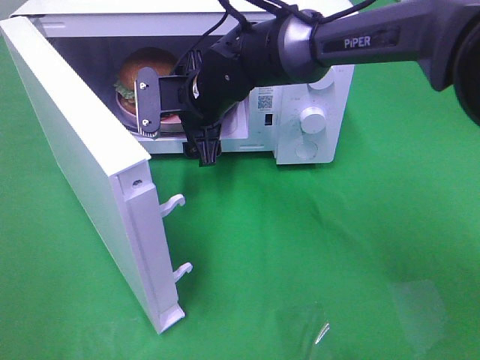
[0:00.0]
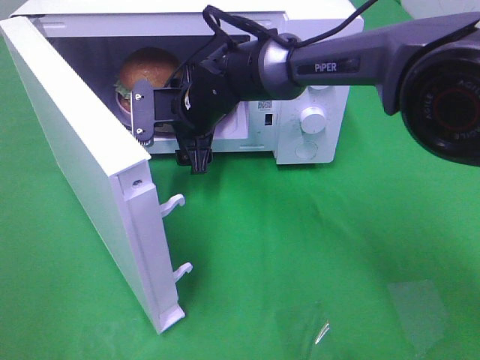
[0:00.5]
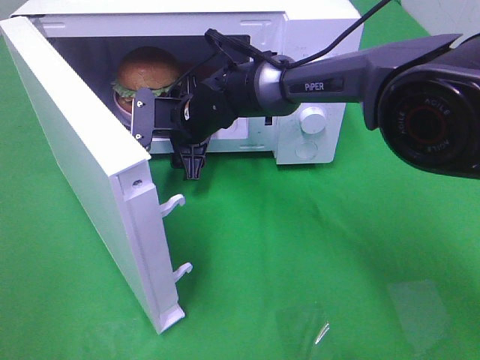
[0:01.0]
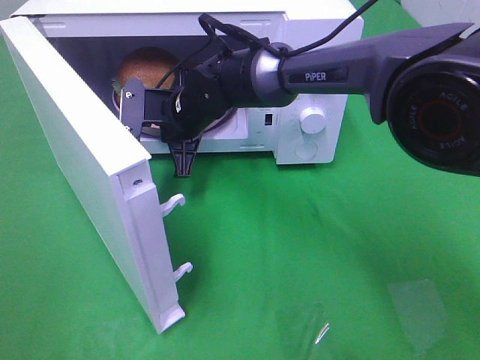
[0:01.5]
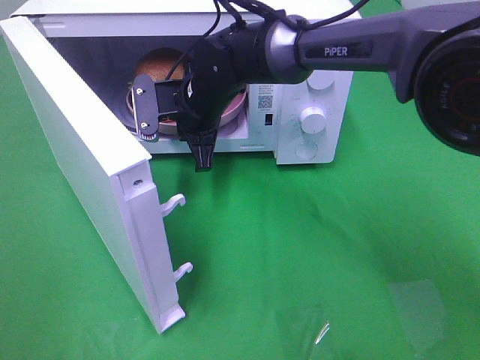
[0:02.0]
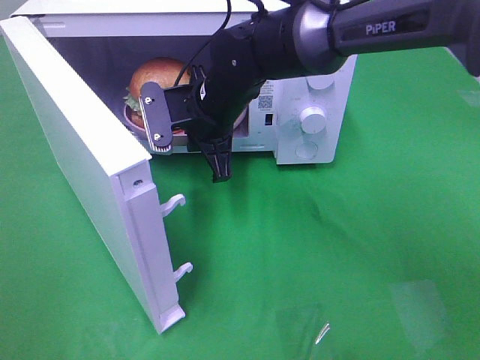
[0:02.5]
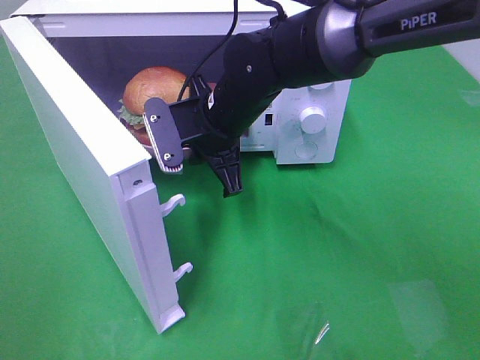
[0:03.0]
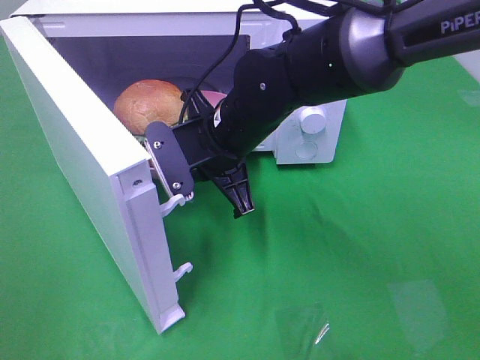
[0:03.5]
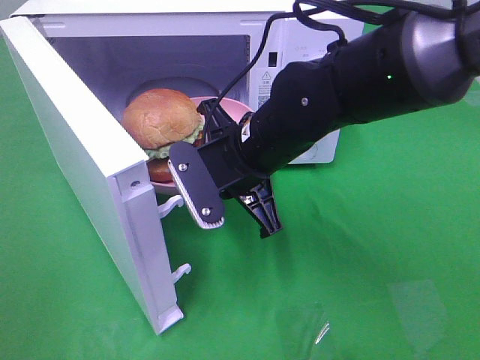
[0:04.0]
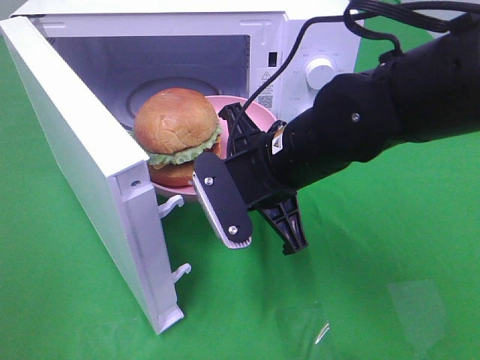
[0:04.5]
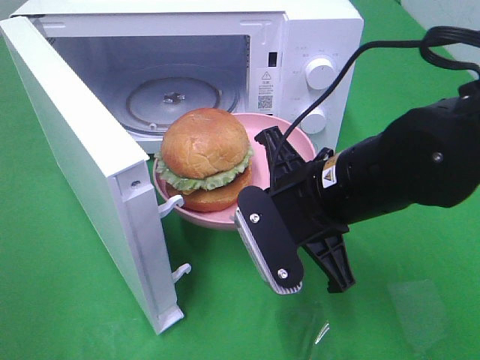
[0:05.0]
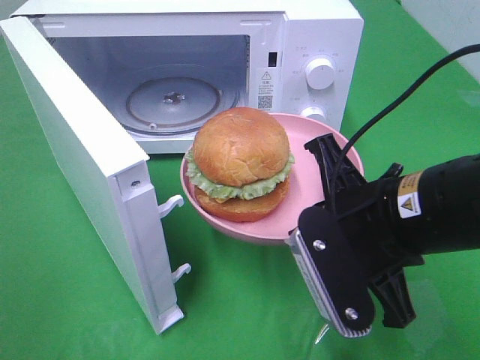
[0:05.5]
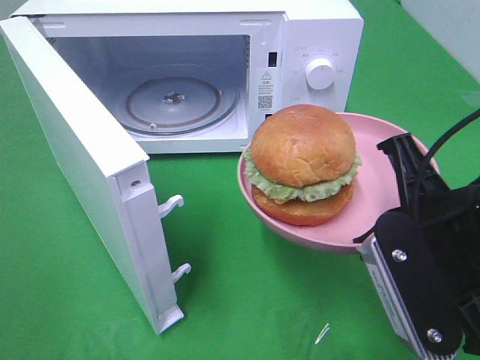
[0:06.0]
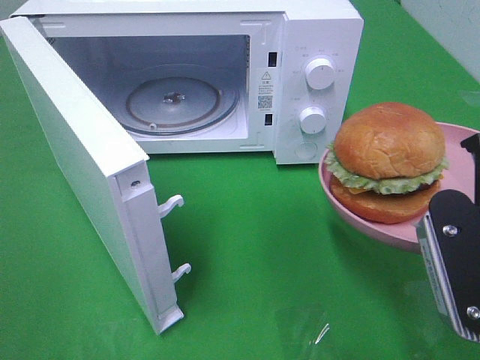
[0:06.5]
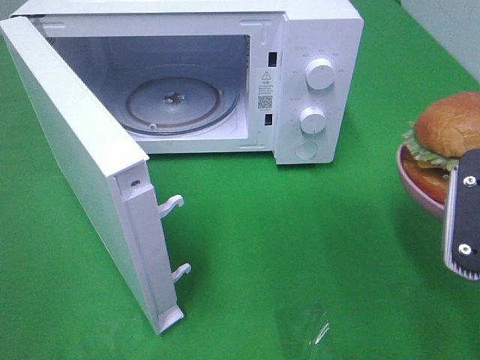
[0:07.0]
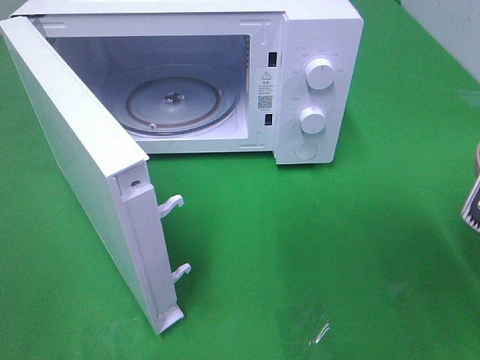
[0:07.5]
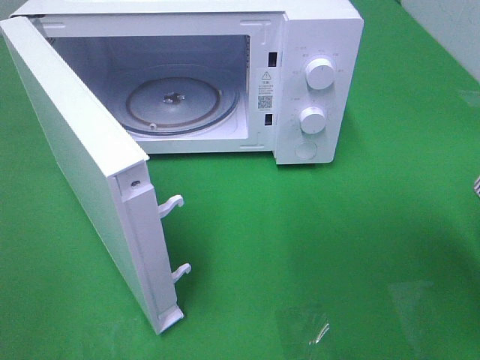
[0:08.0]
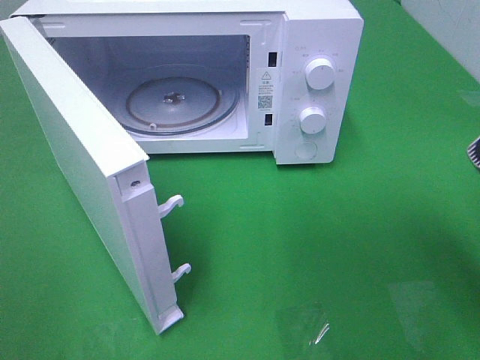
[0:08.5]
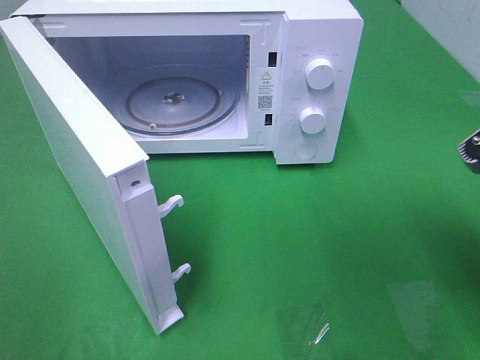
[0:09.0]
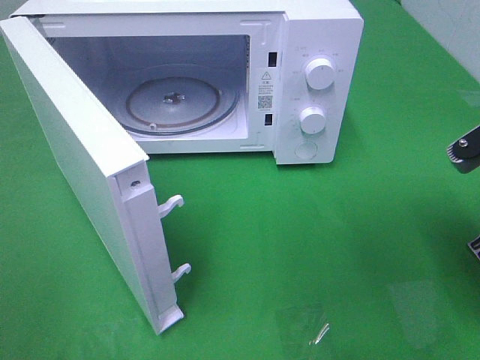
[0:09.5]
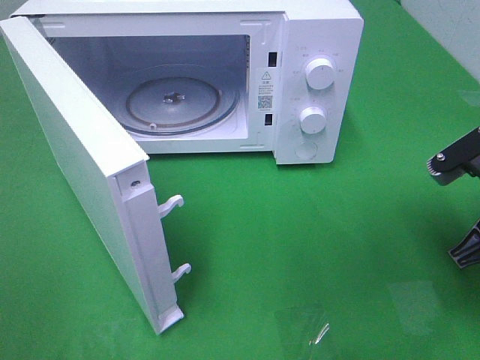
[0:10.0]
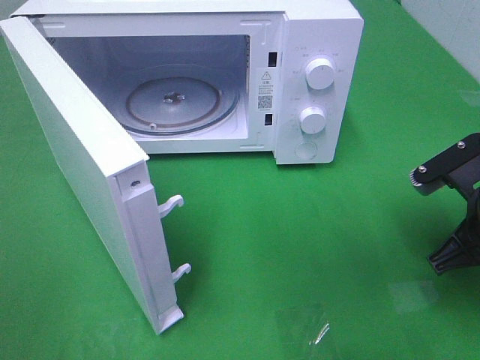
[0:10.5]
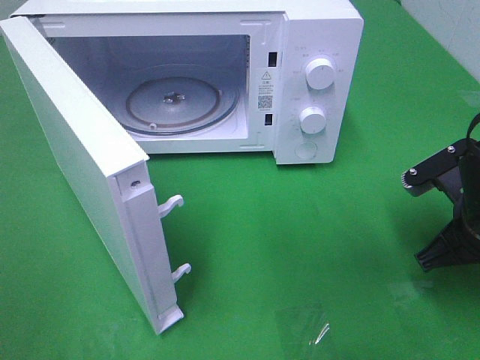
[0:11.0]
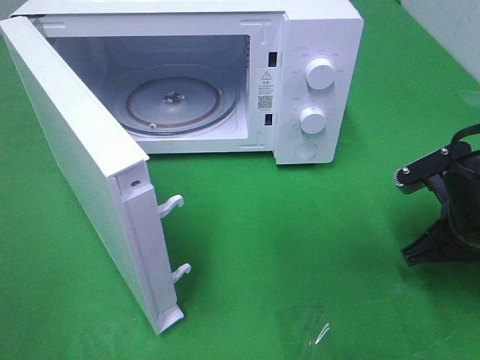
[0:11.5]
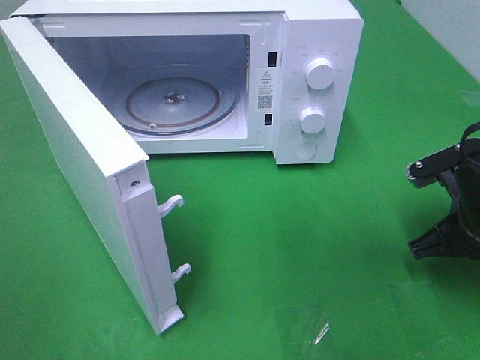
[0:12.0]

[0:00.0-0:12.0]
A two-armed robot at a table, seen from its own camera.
Task of the whole recording: Heat the burger.
0:00.0 to 0:02.0: The right gripper closes its fingers.
0:02.0 to 0:04.0: The right gripper goes some 15 cm backward and to the right.
0:04.0 to 0:06.0: The right gripper goes some 20 cm backward and to the right.
0:06.0 to 0:08.0: The right gripper travels to the right by some 10 cm.
0:08.0 to 0:10.0: The right gripper is displaced forward and downward by approximately 10 cm.
0:10.0 to 0:12.0: The right gripper goes about 5 cm downward.

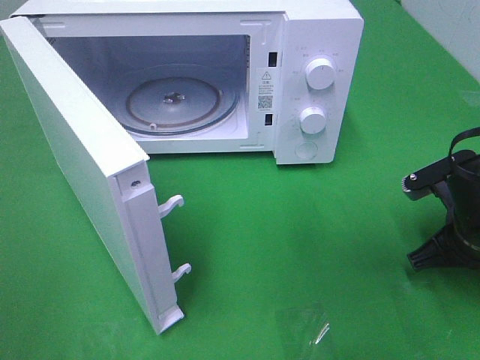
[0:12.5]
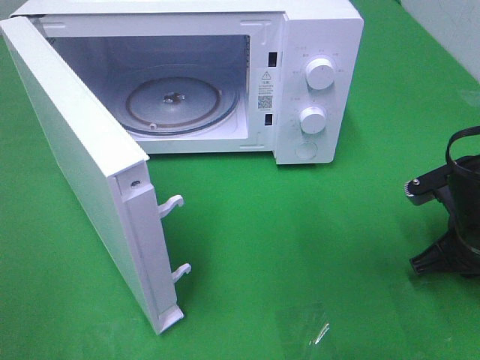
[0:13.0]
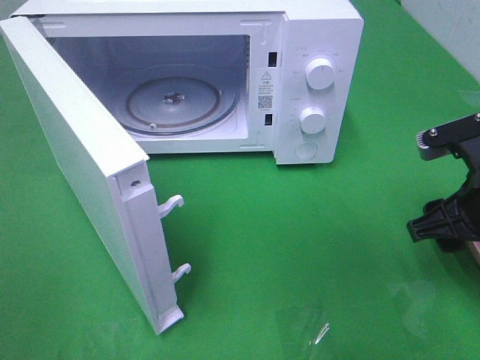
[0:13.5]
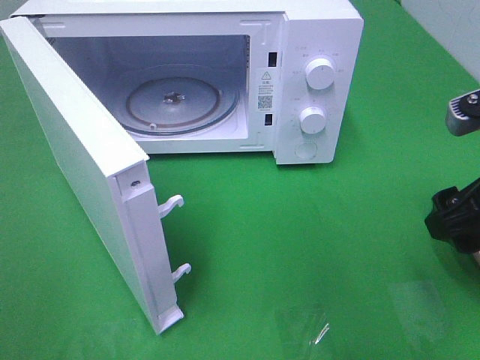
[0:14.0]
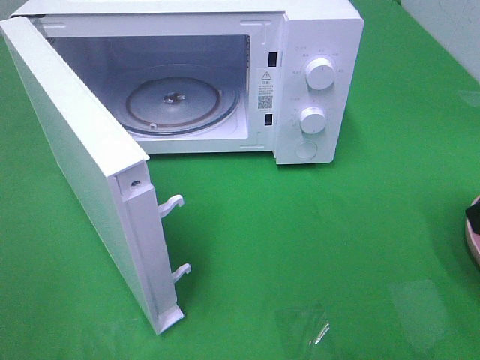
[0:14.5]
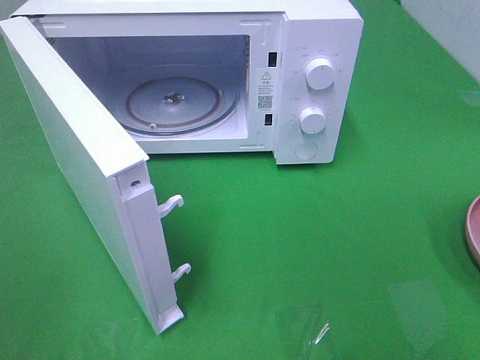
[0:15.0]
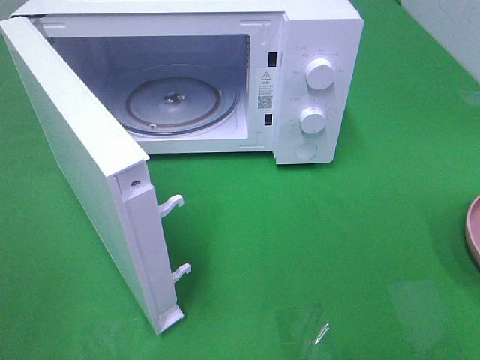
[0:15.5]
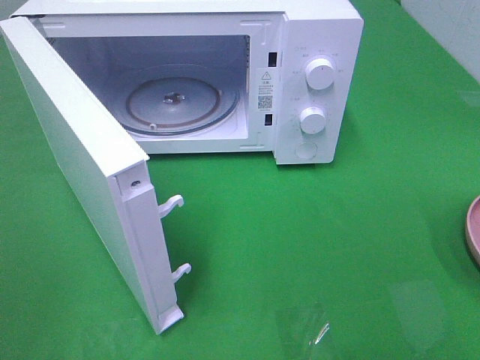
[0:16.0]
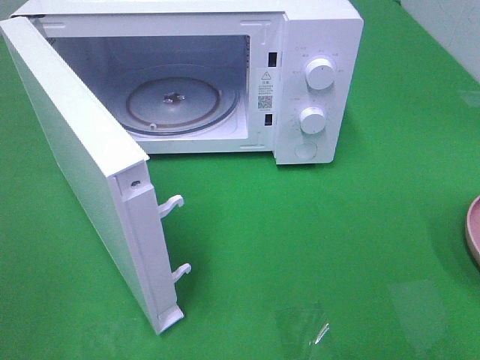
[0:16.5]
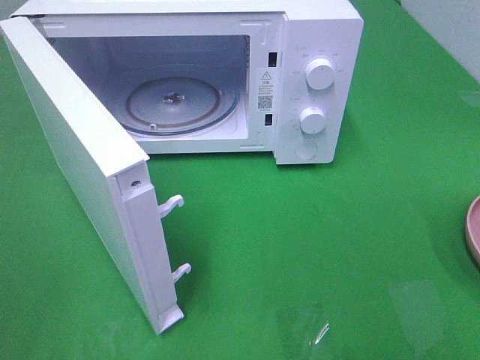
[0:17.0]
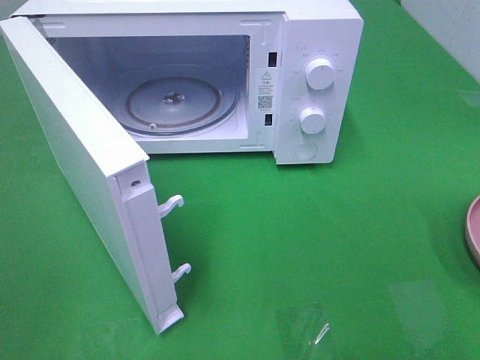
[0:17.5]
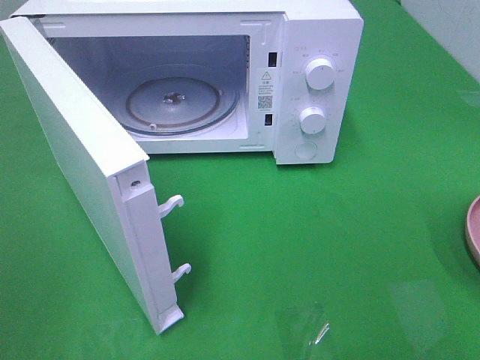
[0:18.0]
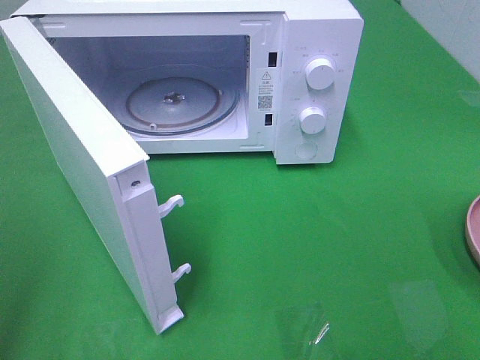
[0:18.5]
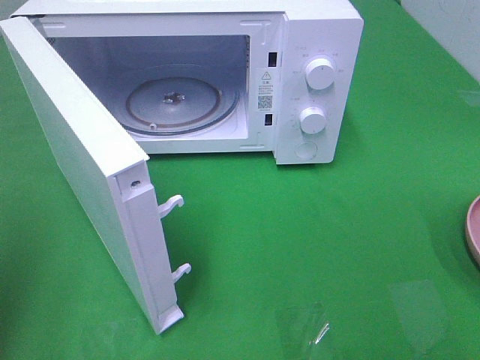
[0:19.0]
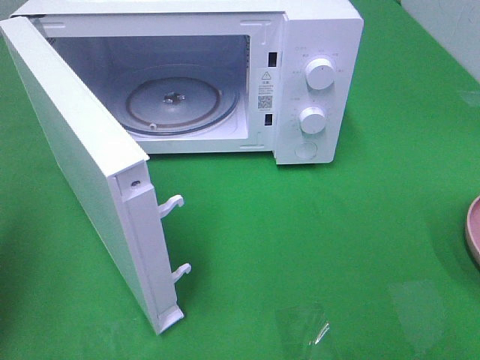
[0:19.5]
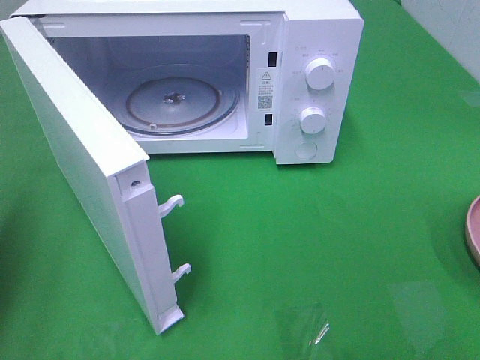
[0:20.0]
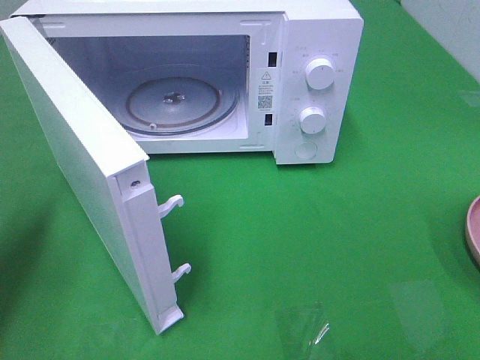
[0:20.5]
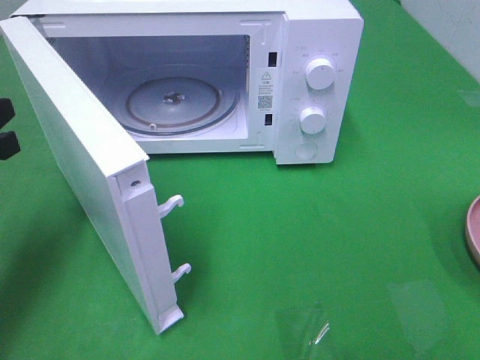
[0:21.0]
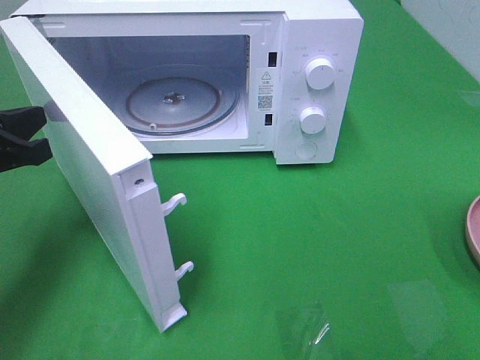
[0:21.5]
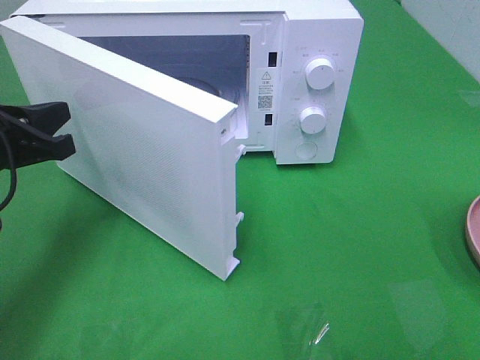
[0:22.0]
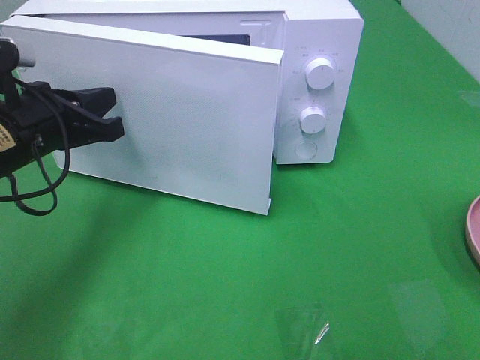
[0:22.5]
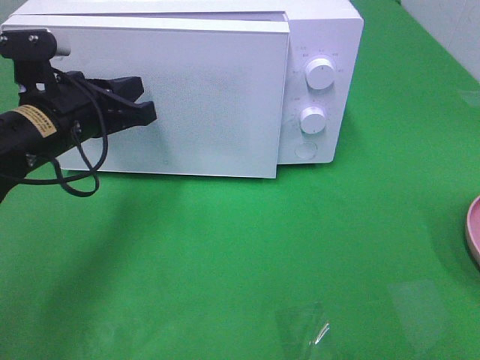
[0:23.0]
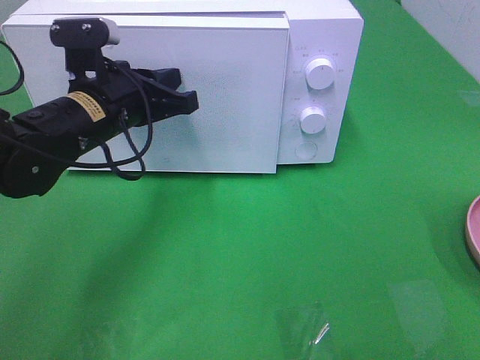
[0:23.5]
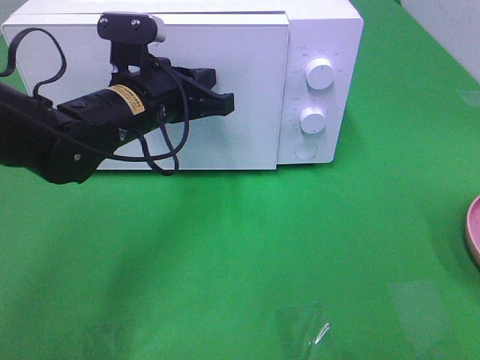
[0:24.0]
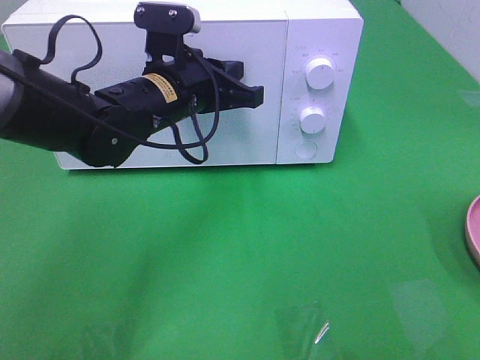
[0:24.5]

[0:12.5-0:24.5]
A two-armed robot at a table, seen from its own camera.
Task of the whole recording: Heat the burger.
0:12.5 to 0:14.5: The right gripper heads upward and backward, covering roughly 20 cm, and opens up.
0:18.5 to 0:20.5: The left gripper shifts about 20 cm forward and downward, and closes up.
0:20.5 to 0:22.5: The left gripper shifts about 15 cm to the right and forward.
0:22.5 to 0:24.5: The left gripper shifts approximately 15 cm to the right and forward.

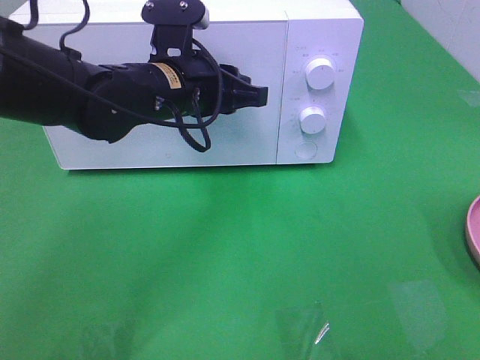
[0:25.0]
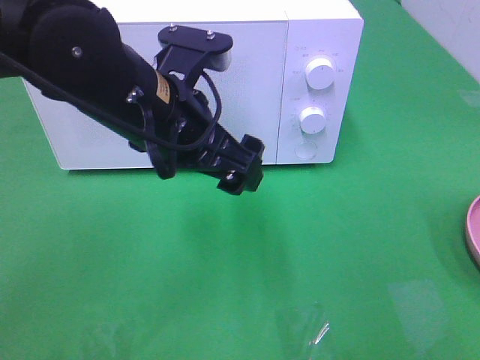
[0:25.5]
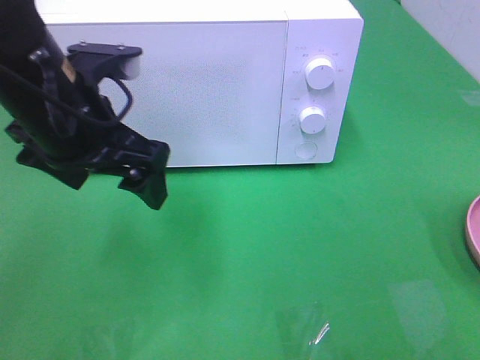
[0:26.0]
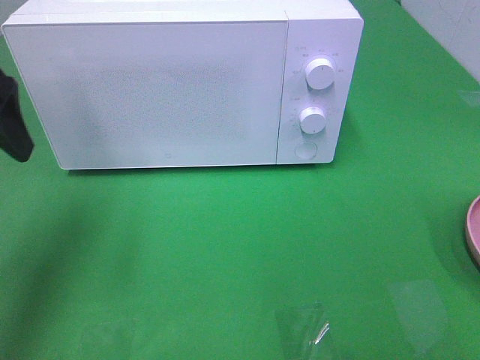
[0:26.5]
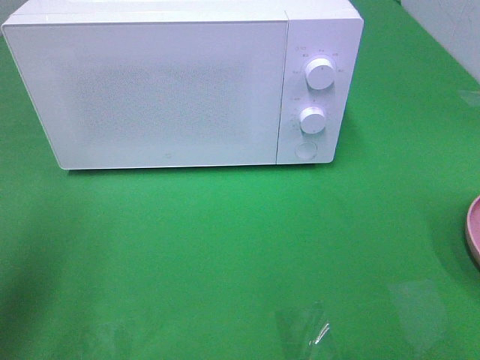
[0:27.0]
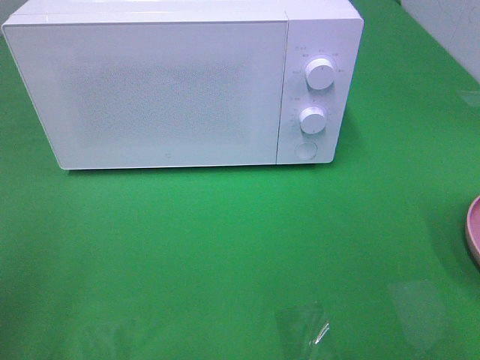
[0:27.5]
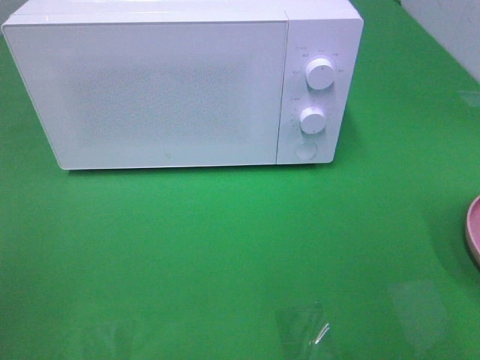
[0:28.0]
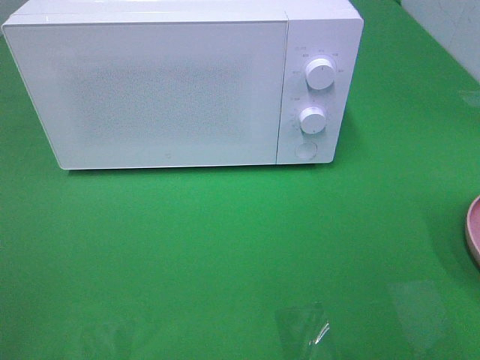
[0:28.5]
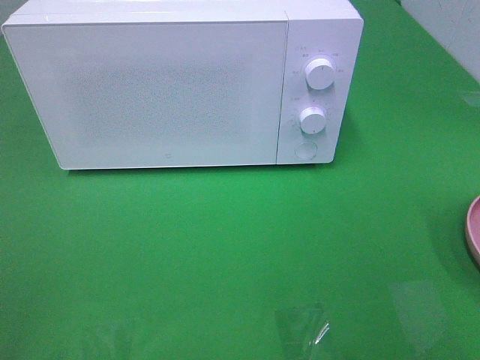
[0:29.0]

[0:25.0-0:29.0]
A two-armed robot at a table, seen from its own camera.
Task of the whole recording: Heat the burger.
0:25.0 to 0:27.0: The left gripper moves to the left and backward, roughly 30 cm, and opens its fingers.
0:27.0 to 0:29.0: The left gripper travels backward by about 15 cm.
